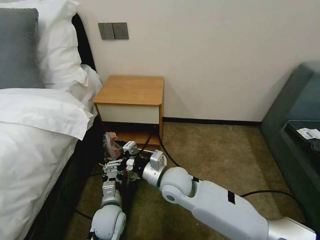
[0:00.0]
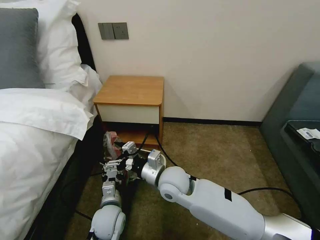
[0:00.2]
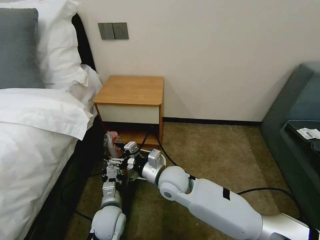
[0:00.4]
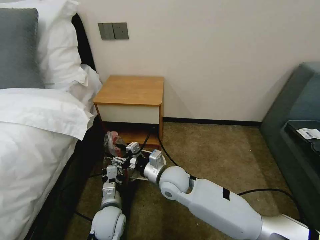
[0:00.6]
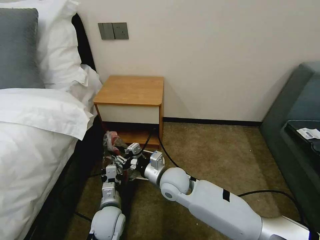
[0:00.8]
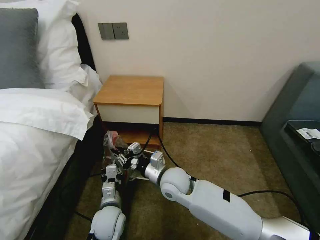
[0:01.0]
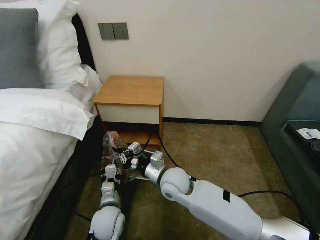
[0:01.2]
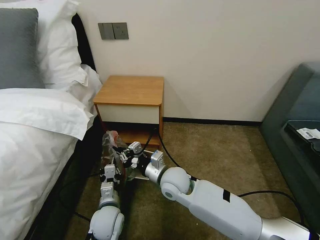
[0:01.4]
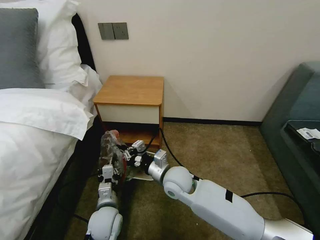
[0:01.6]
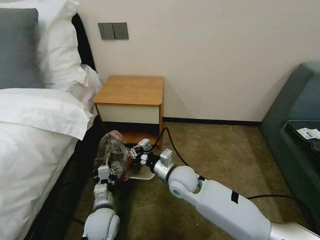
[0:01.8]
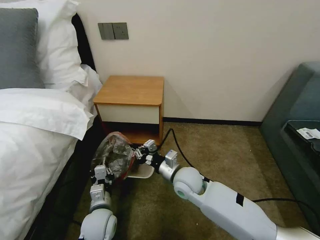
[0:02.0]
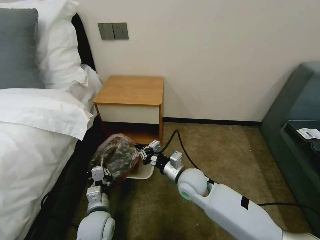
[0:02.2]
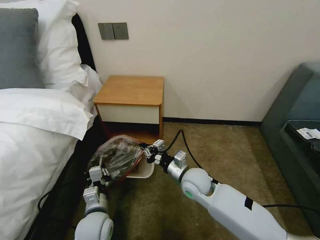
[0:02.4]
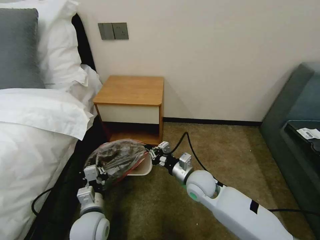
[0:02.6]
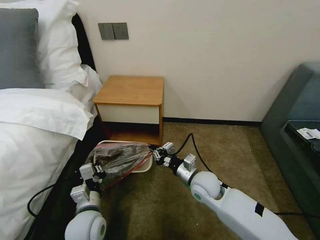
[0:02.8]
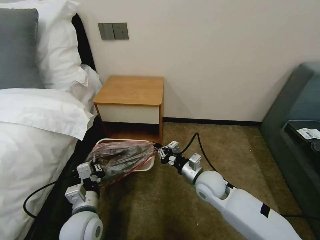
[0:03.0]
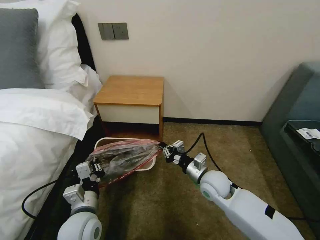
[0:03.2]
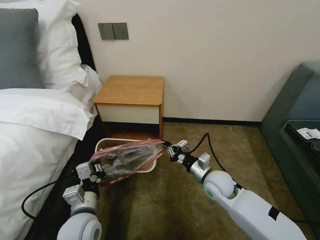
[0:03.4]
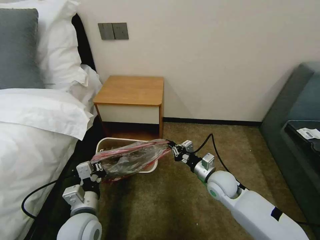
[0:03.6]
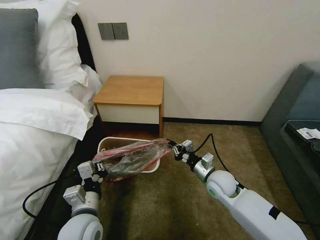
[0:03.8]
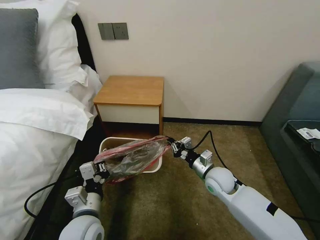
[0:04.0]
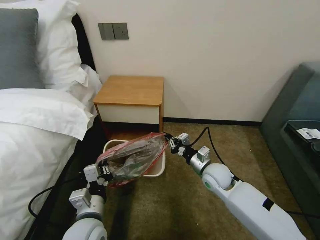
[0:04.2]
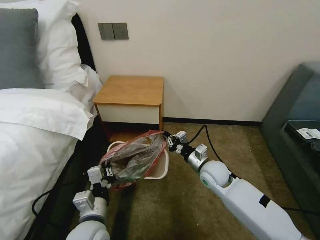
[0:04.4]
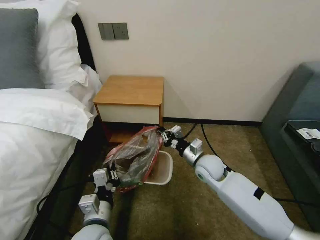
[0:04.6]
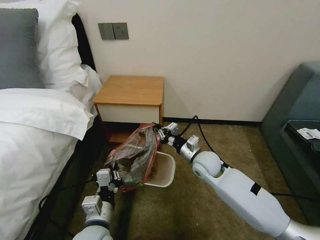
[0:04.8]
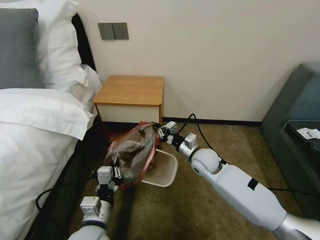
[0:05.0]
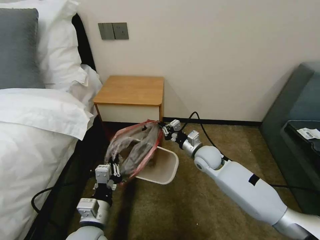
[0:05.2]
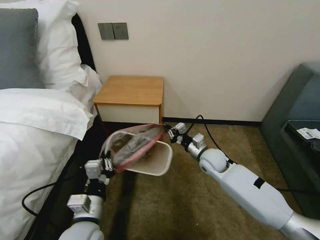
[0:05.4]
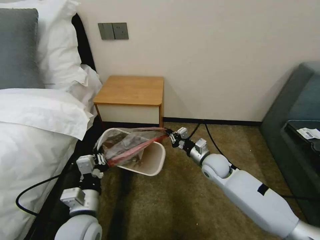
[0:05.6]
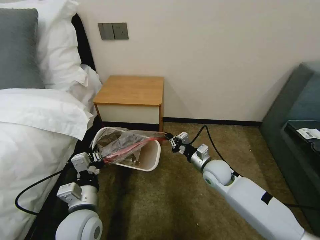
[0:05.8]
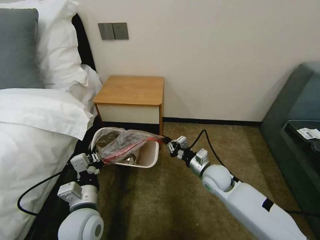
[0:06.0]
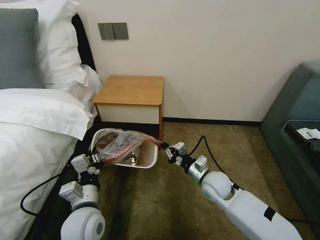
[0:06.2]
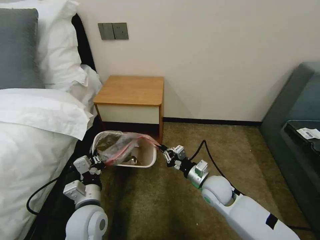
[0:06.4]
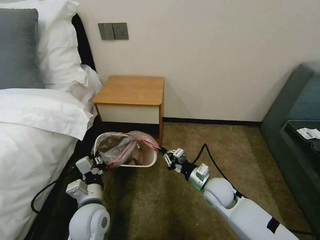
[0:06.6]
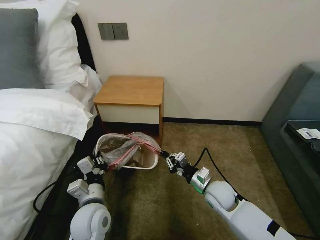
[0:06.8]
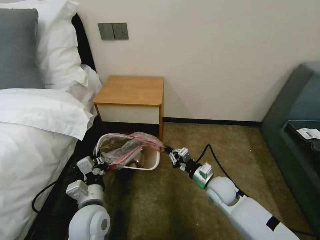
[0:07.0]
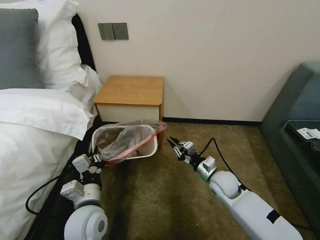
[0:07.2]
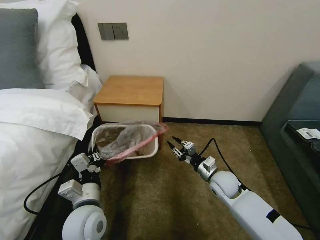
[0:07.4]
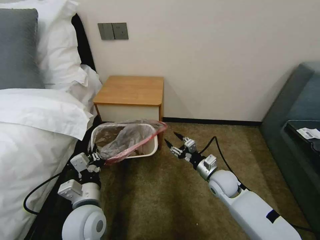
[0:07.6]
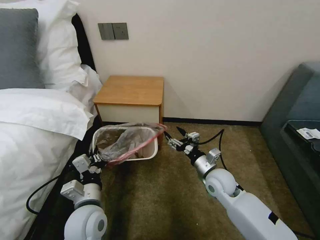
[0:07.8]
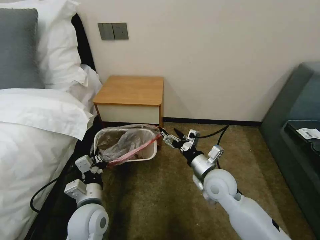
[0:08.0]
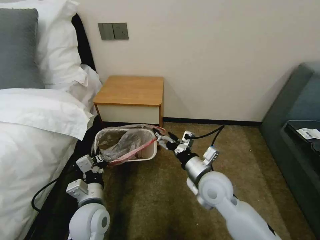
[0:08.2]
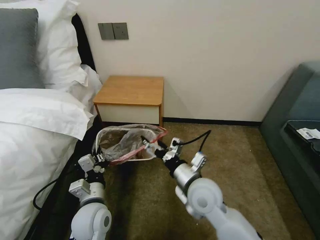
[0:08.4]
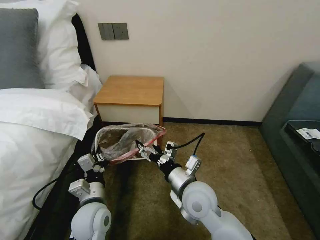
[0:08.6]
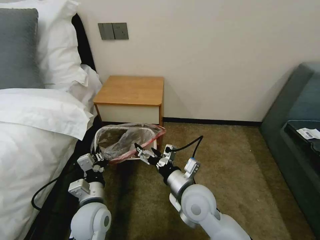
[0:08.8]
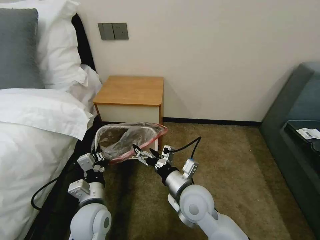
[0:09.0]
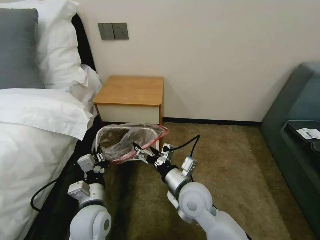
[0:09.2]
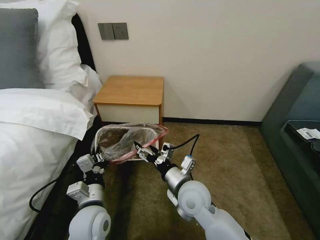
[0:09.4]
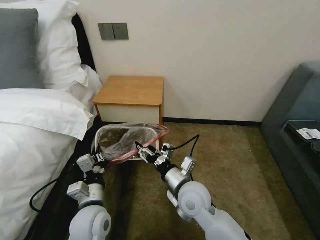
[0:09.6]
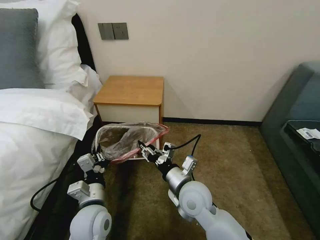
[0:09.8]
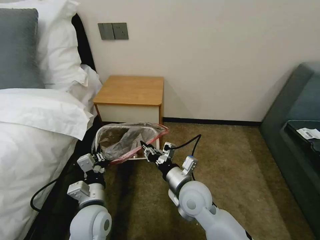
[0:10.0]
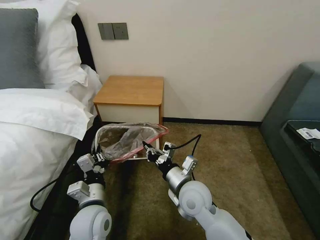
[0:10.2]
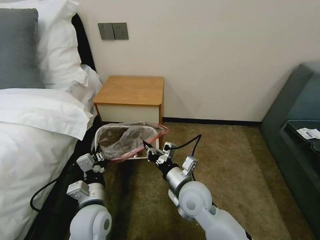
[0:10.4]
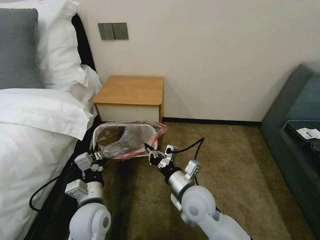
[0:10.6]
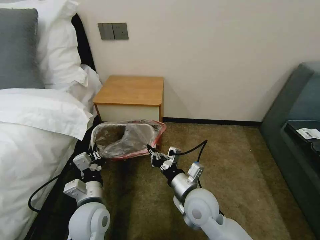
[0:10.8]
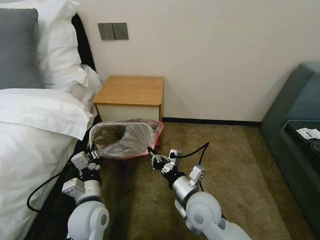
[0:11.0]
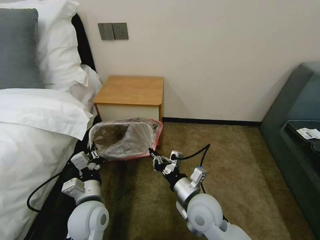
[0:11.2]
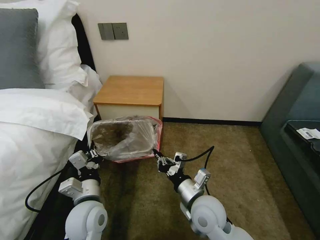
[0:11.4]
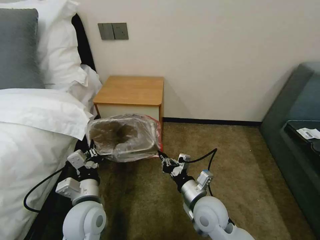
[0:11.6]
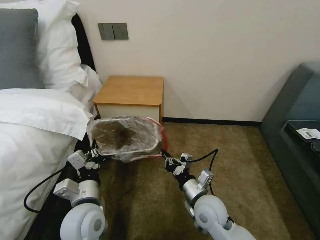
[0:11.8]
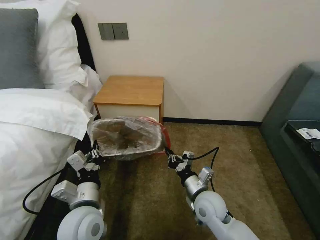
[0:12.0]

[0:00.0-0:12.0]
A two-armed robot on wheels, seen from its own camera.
Task of the whole recording: Pick up the garbage bag from the table and place it over the trash can.
0:00.0 to 0:01.6: The right gripper closes its fingers.
0:01.6 to 0:03.0: The right gripper goes about 10 cm to the right. Meanwhile the left gripper is displaced upward by approximately 5 cm.
0:03.0 to 0:04.4: The grippers make only small movements.
0:04.4 to 0:06.0: The grippers make only small movements.
0:06.0 to 0:07.6: The right gripper opens its fingers.
0:07.6 to 0:09.0: The right gripper heads to the left, backward and upward, covering about 20 cm, and opens up.
0:09.0 to 0:10.4: The right gripper closes its fingers.
0:10.4 to 0:12.0: The right gripper goes some 5 cm downward and to the right.

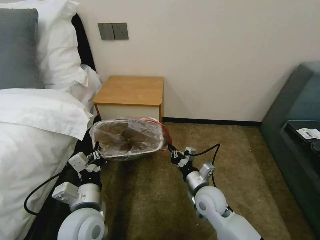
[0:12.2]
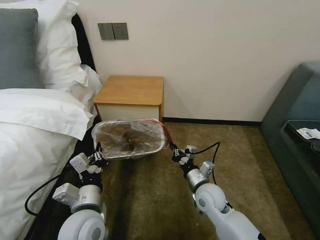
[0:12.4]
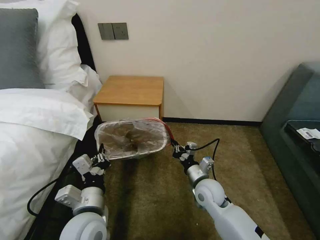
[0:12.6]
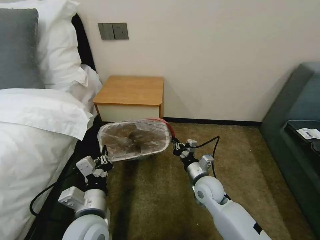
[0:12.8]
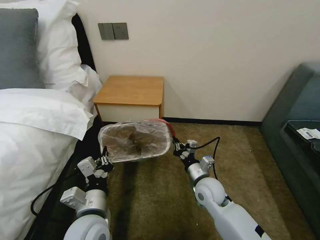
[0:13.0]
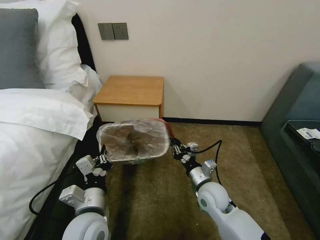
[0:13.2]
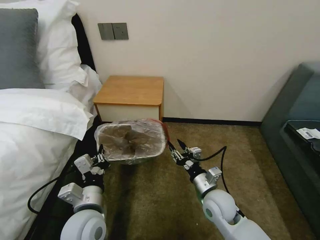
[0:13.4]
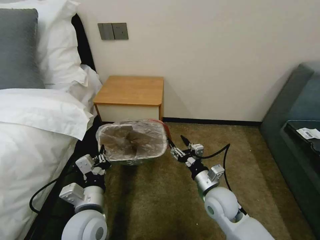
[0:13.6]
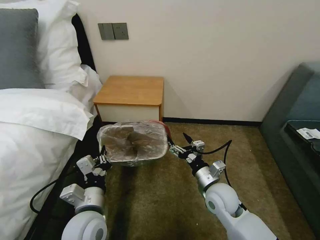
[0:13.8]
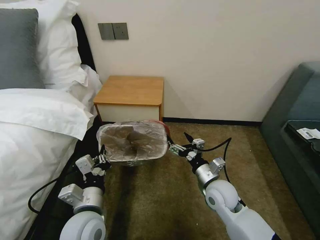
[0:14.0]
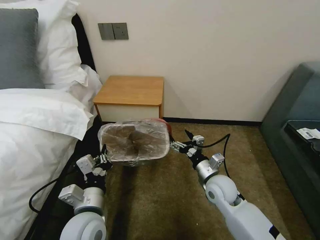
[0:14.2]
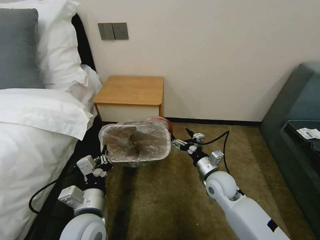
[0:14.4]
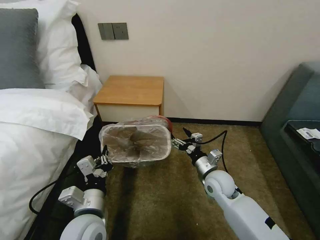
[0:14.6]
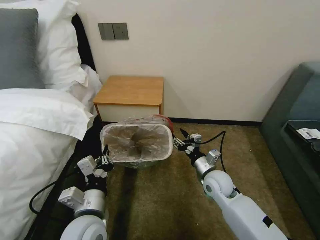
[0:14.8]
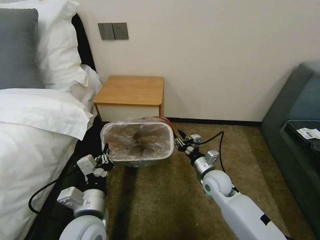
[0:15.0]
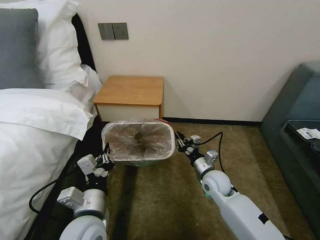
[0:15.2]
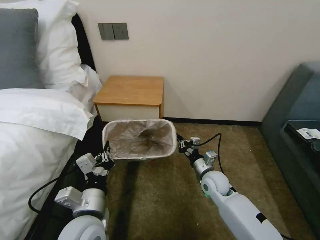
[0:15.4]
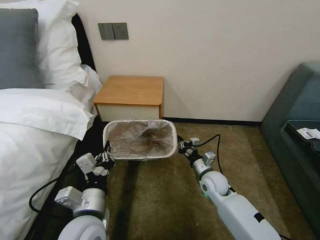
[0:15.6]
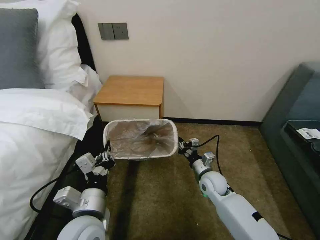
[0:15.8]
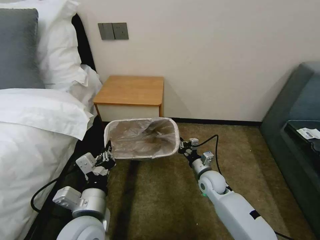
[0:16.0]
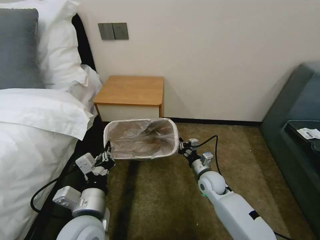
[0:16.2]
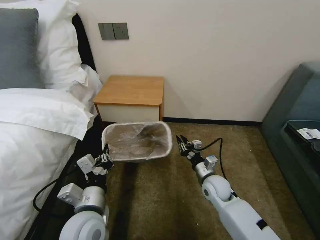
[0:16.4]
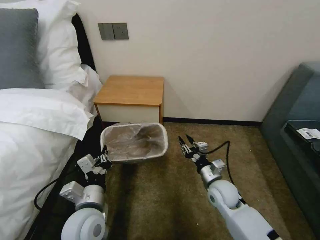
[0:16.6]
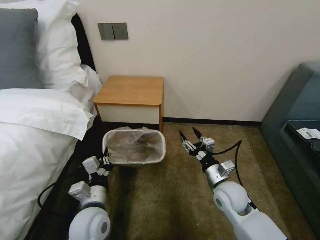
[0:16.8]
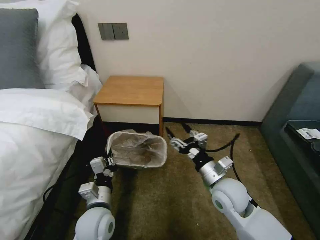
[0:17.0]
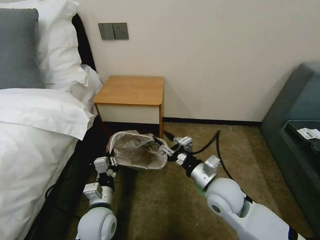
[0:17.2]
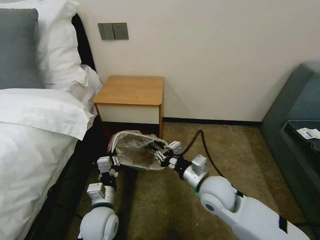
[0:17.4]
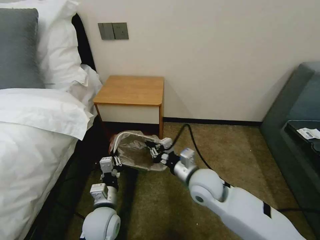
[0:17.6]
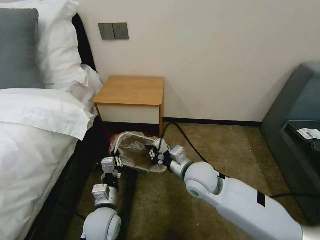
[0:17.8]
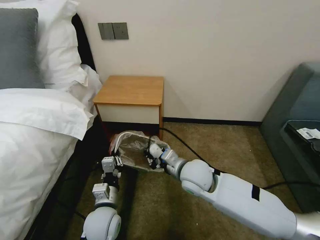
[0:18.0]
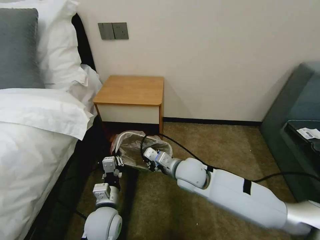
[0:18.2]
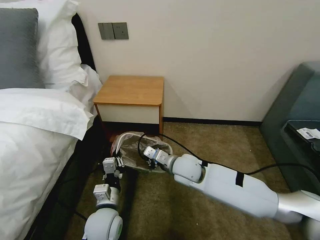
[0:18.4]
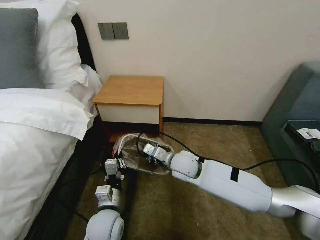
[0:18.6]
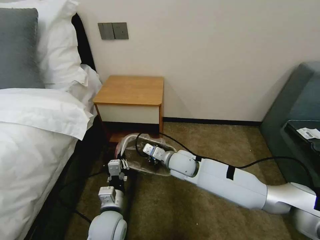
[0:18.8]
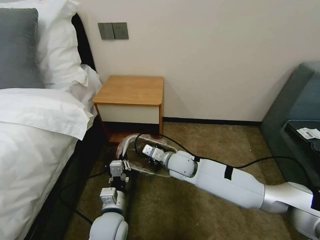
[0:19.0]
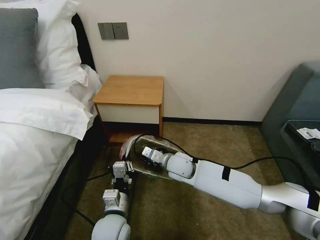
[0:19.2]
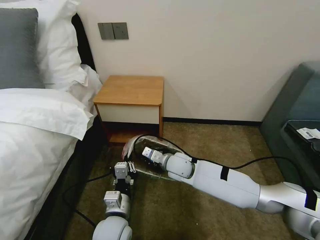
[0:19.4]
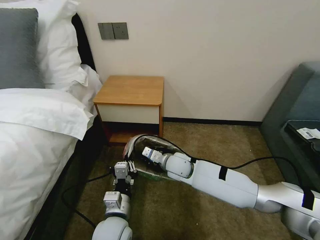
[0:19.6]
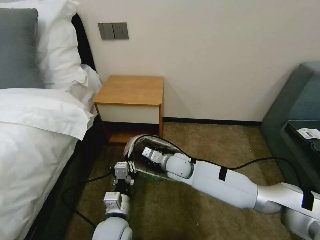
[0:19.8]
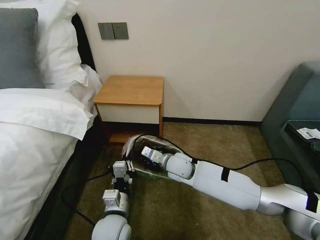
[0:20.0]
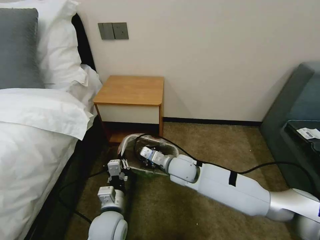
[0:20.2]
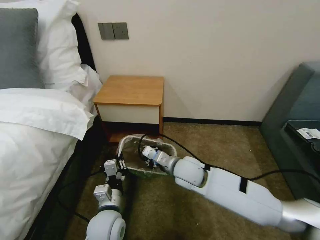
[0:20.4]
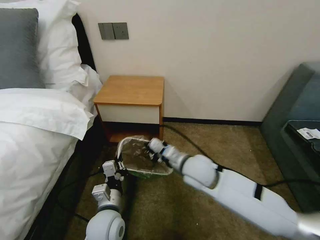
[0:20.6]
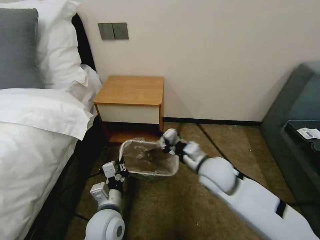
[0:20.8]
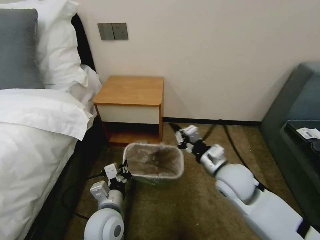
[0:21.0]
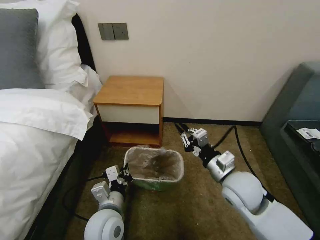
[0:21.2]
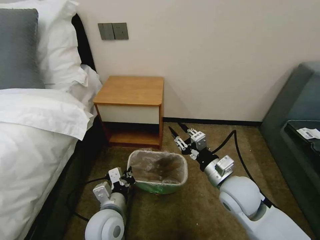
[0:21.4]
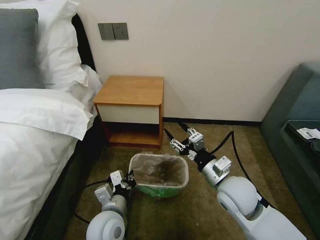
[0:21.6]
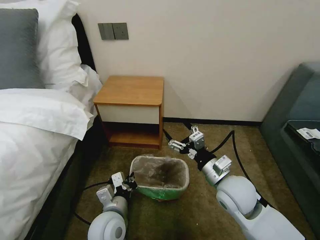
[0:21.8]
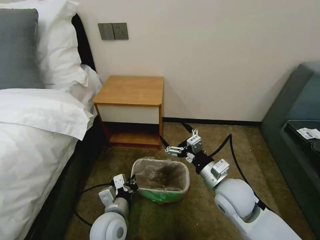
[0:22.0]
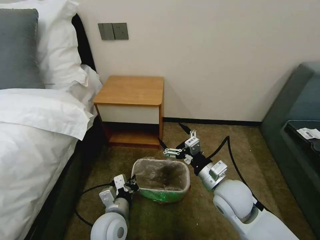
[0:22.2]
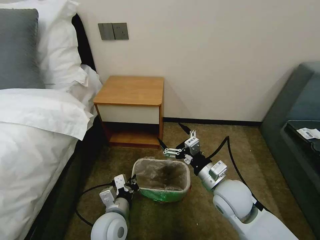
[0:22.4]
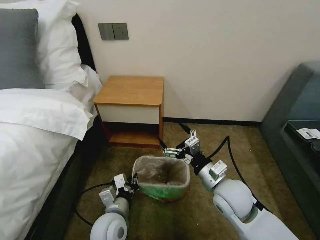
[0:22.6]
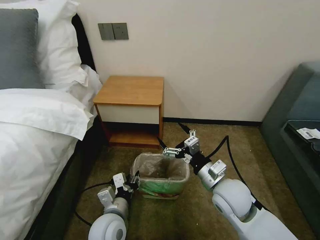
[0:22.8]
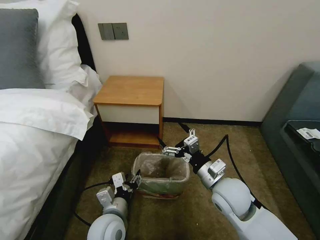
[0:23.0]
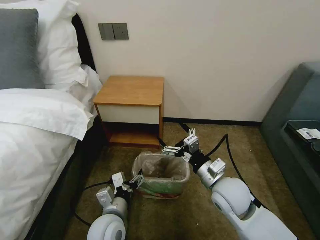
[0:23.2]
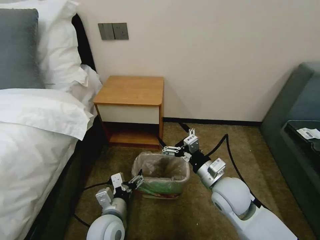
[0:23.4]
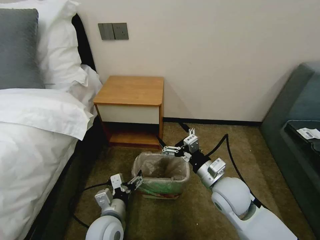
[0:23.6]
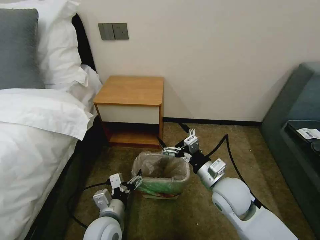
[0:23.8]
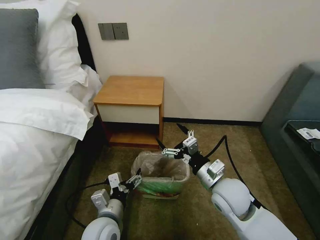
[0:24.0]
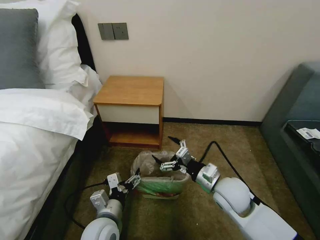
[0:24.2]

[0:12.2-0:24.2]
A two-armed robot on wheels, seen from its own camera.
Task of the whole recording: Pick up the garbage bag from the table and place it over the trash can.
0:12.2 to 0:13.8: The right gripper opens.
0:13.8 to 0:15.2: The right gripper travels forward by some 5 cm, and closes up.
0:15.2 to 0:16.6: The grippers stay close to where they were, moving slightly.
0:16.6 to 0:18.2: The left gripper is displaced downward by approximately 5 cm. Meanwhile the right gripper is displaced to the left and upward by about 15 cm, and closes.
0:18.2 to 0:19.8: The left gripper changes place by about 5 cm, while the right gripper moves forward and downward, roughly 10 cm.
0:19.8 to 0:21.2: The right gripper travels to the right, backward and upward by approximately 20 cm.
0:21.2 to 0:22.6: The right gripper opens.
0:22.6 to 0:24.2: The left gripper opens up.
